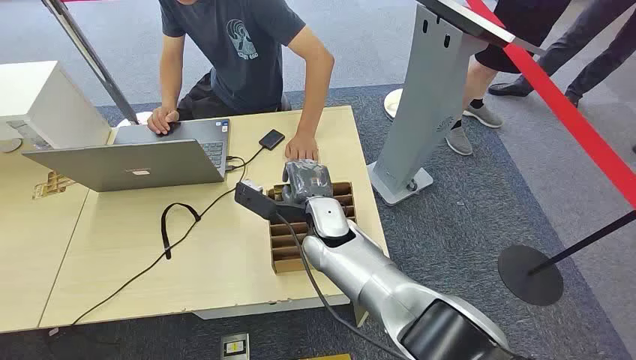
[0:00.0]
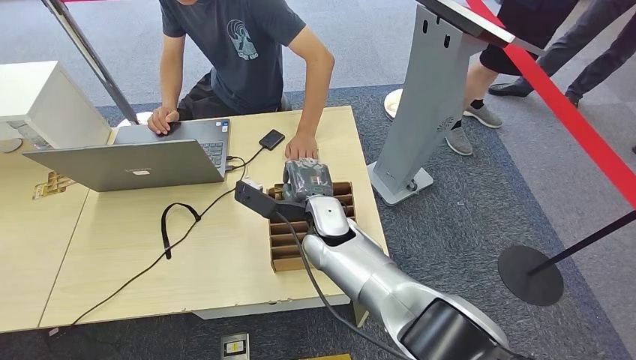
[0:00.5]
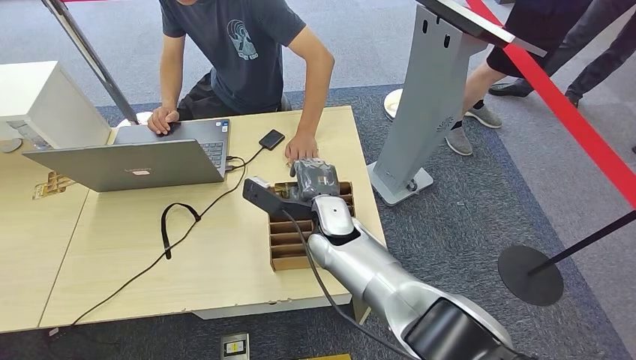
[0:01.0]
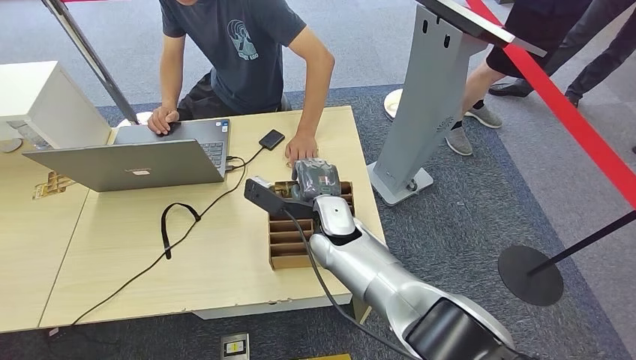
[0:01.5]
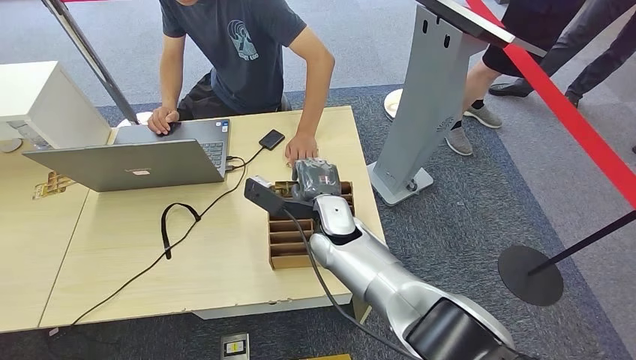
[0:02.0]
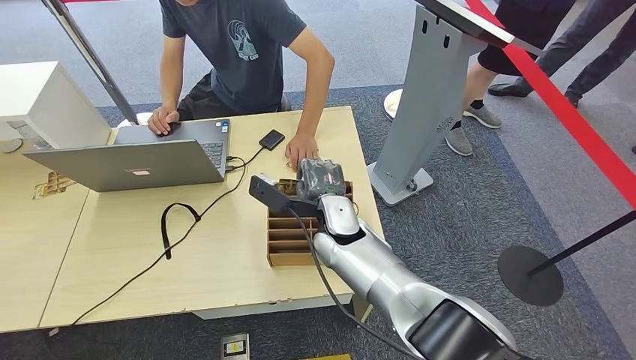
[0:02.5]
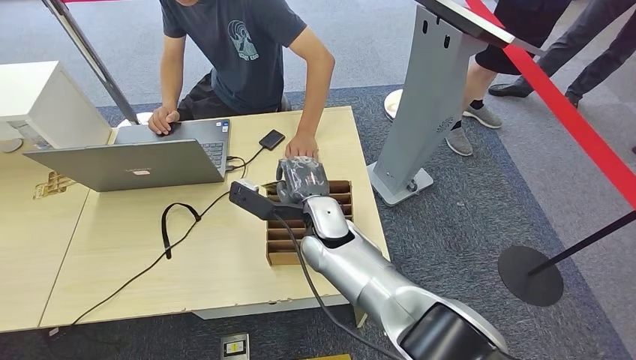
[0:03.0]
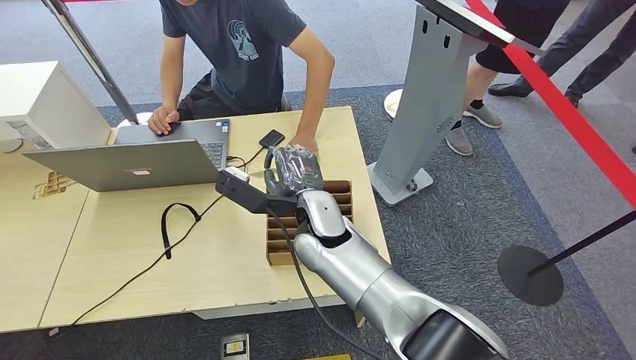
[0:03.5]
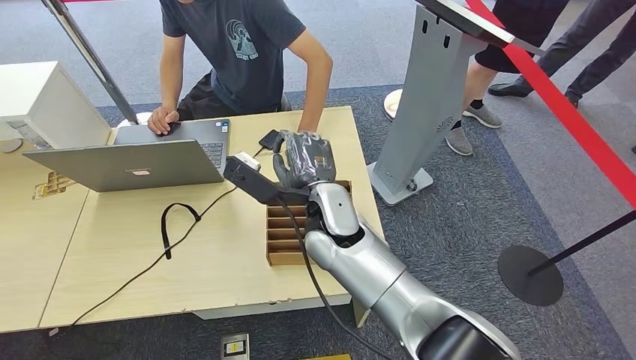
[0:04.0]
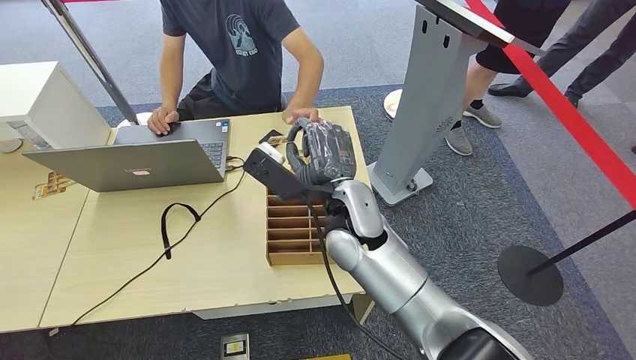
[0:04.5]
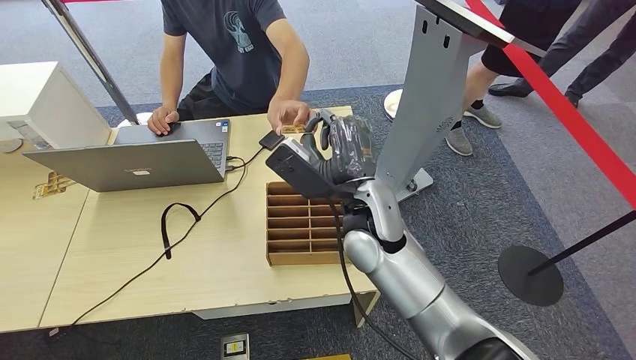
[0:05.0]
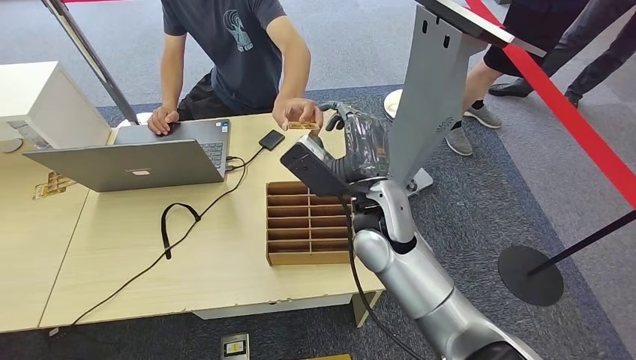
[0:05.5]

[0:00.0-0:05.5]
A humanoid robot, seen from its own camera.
Step, 0:00.0 to 0:03.0: Pick up the room card from the card holder.
Step, 0:03.5 to 0:05.5: Hand the room card to the target.
0:02.0 to 0:03.5: The right hand shifts by roughly 5 cm.
0:03.5 to 0:05.5: The right hand moves to the right, about 10 cm.
